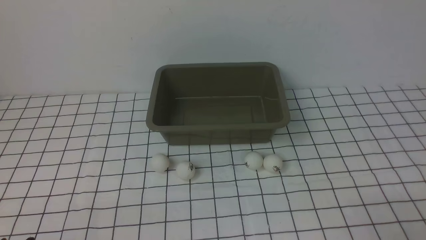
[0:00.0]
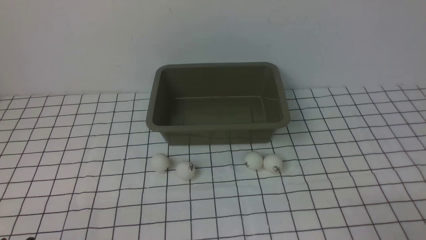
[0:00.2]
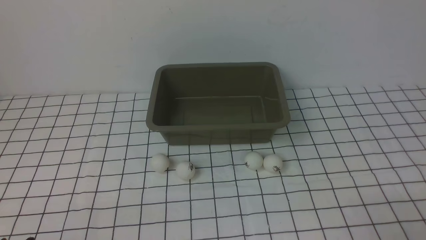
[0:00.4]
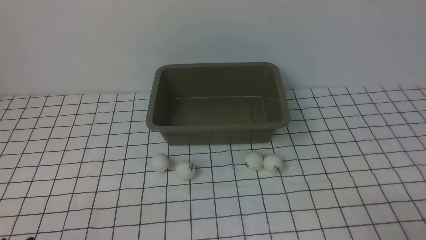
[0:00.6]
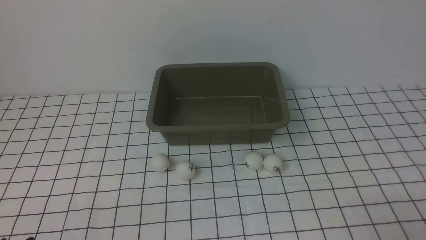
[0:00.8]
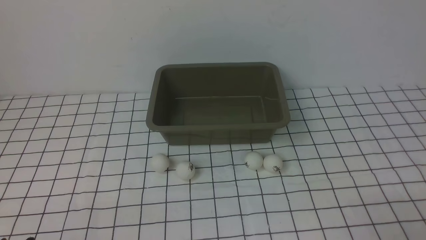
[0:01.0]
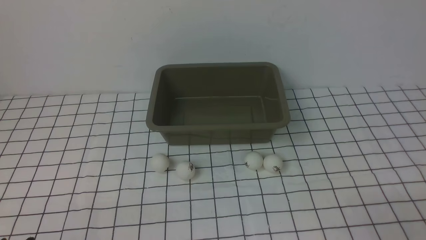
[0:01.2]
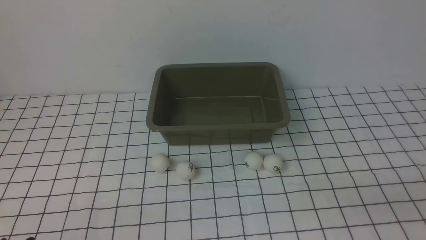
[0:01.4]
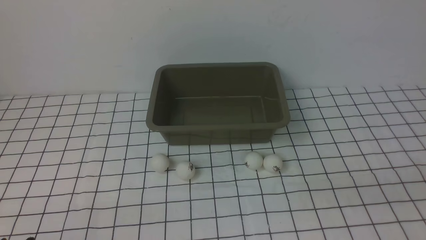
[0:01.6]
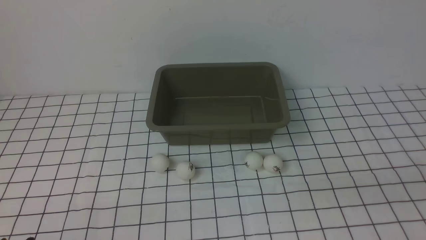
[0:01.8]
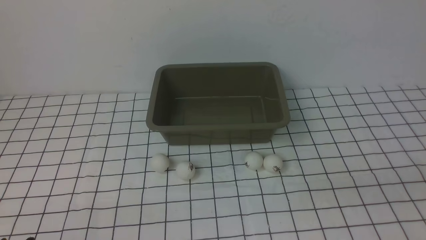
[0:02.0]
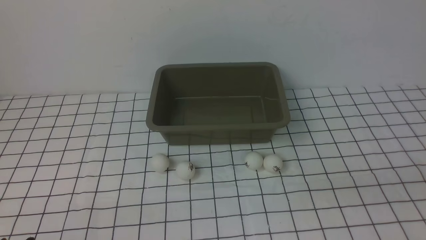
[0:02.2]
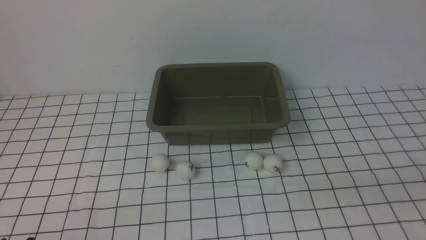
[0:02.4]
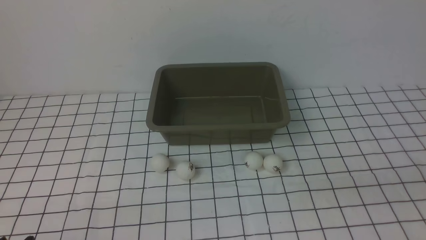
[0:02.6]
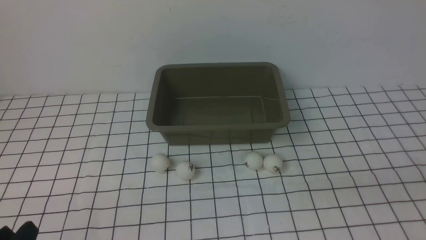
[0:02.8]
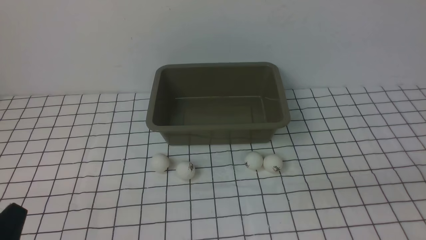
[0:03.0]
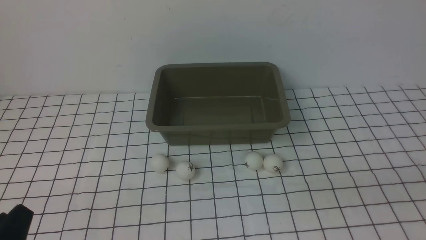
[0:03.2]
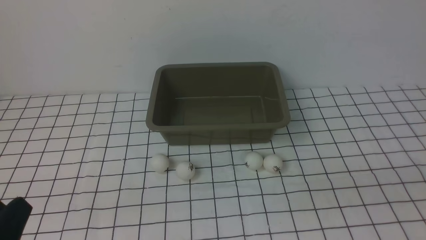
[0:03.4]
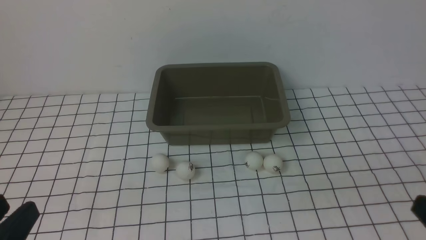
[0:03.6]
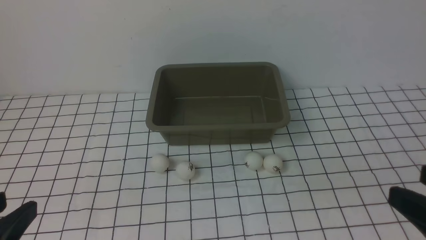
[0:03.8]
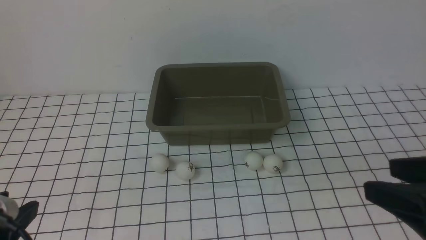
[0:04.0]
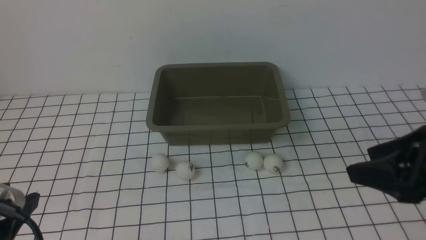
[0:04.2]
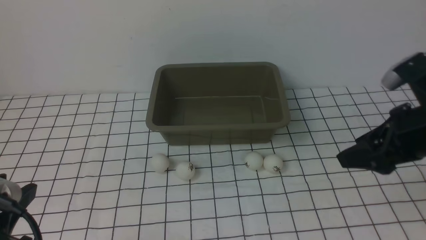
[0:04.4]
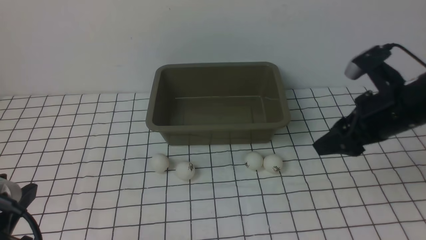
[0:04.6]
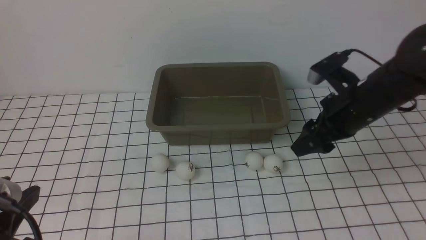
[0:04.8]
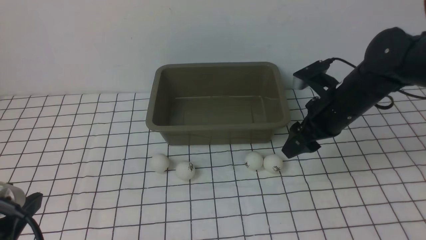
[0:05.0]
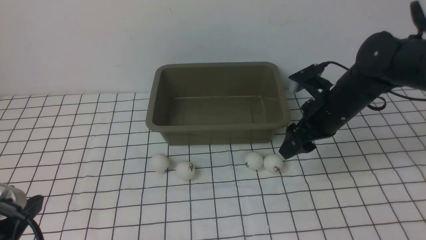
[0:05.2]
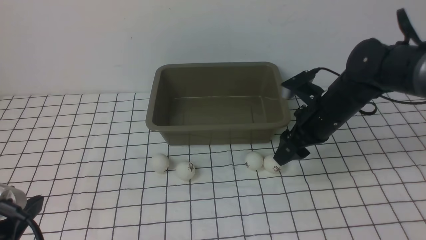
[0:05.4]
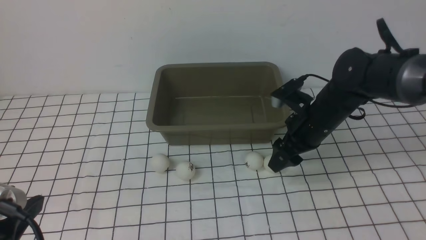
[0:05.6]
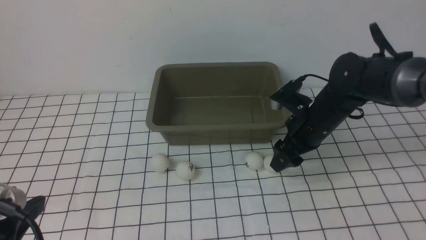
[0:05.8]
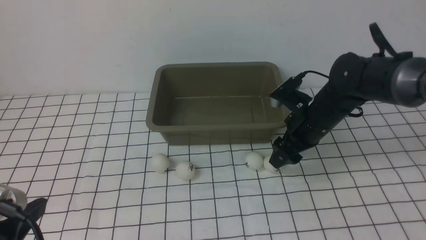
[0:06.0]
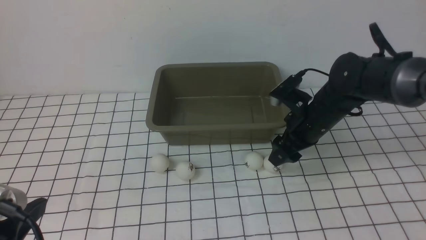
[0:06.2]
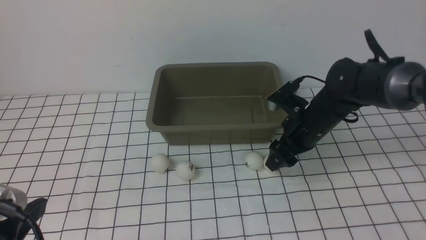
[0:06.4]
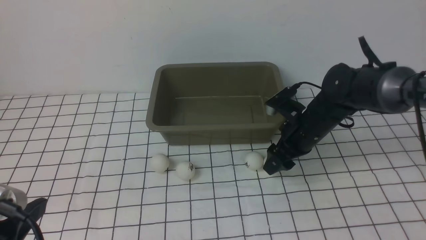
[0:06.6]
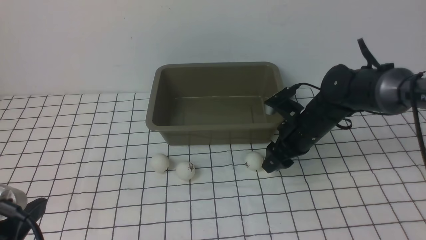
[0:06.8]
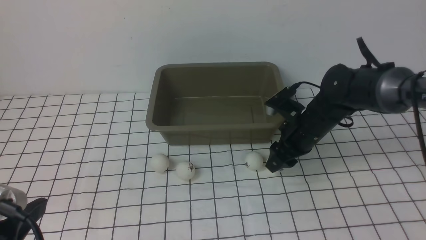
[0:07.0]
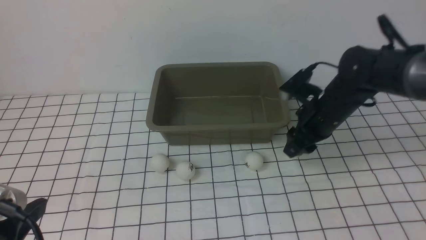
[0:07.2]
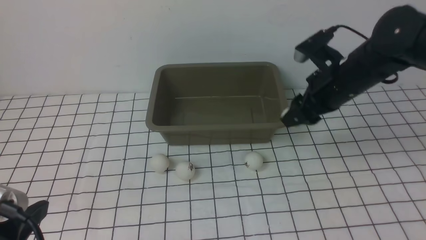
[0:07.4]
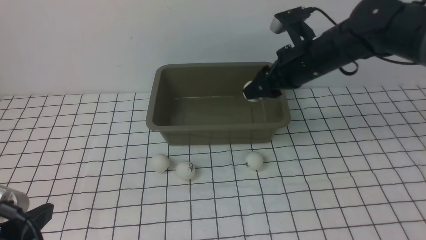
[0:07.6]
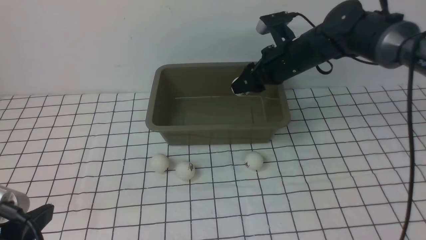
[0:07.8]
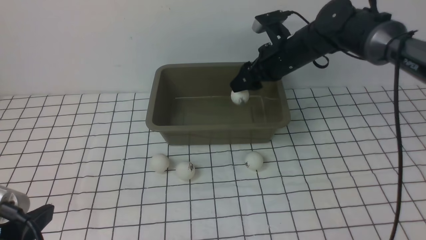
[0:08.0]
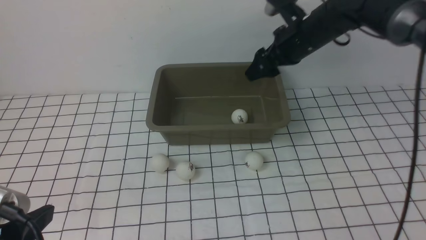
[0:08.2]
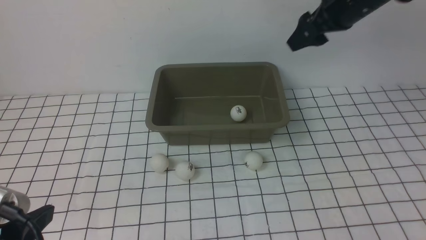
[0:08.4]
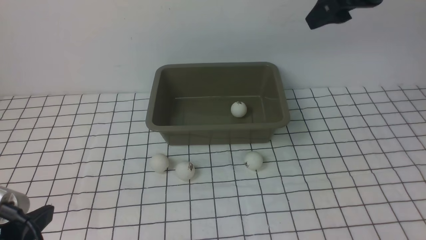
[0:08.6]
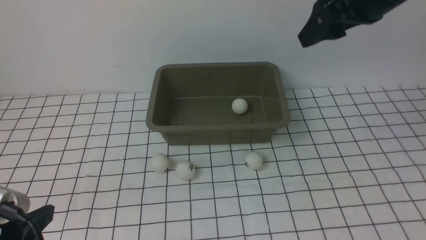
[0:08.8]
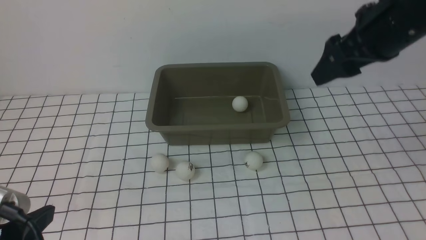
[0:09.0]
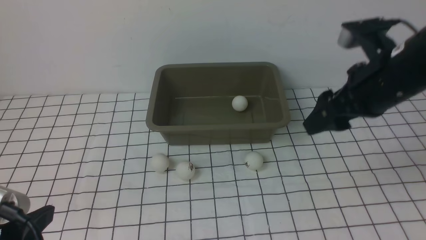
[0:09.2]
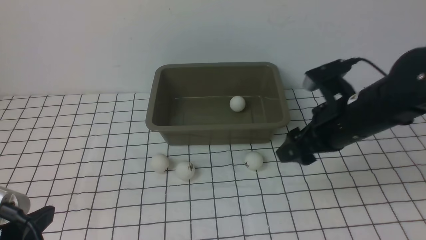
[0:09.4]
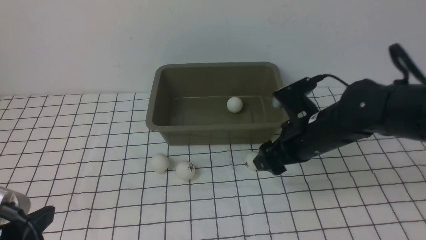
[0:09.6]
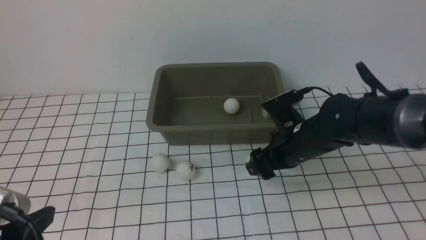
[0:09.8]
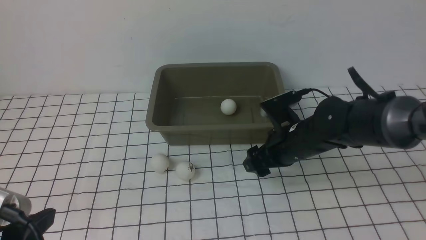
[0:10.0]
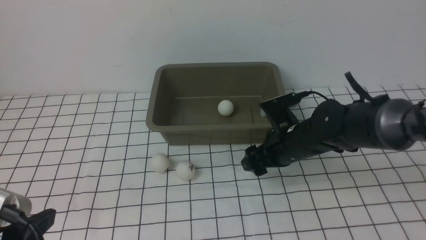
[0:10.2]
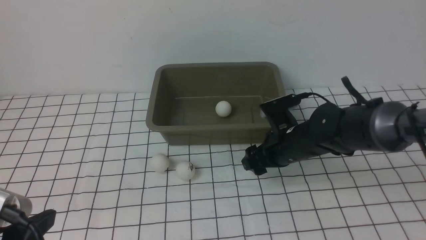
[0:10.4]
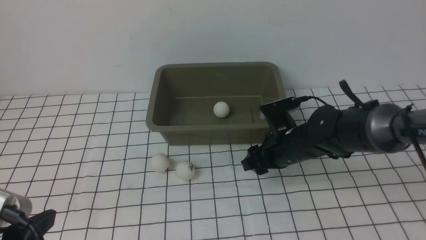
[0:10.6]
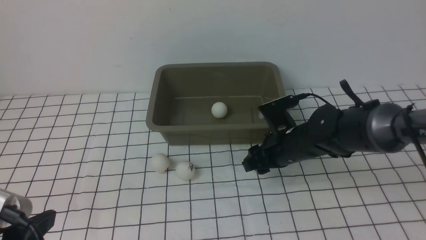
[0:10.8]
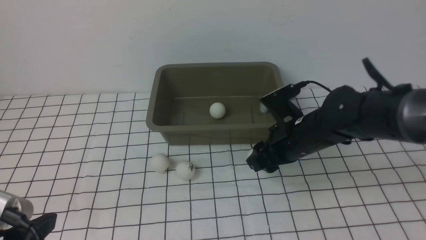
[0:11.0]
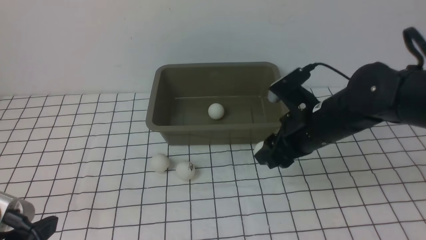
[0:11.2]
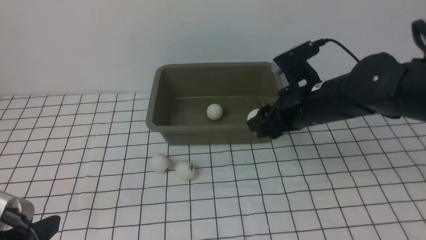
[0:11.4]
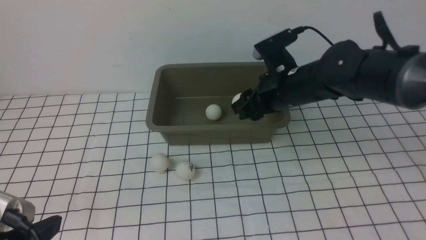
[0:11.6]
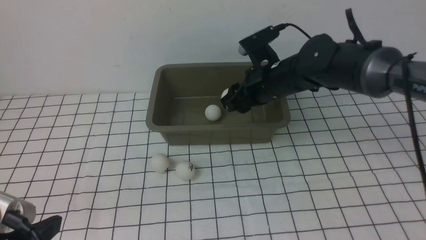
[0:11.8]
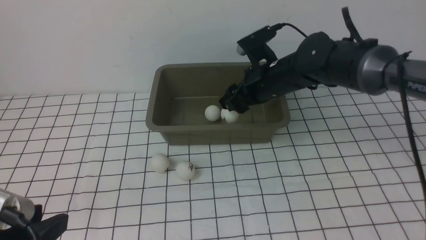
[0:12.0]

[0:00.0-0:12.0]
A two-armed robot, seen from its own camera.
Step, 0:00.0 to 0:07.4: use the right arm to clamp the table tennis ball closest to it.
Step, 0:07.6 to 0:08.2: use the right arm to put the table tennis ball into the box.
Step, 0:08.4 to 0:11.0: use the right arm to clamp the table tennis ball closest to it.
0:03.0 to 0:04.4: The left gripper travels upward by some 10 cm; the right gripper travels forward by about 20 cm.
0:04.4 to 0:06.0: The right gripper shifts about 20 cm forward, downward and to the left.
0:06.0 to 0:07.6: The right gripper heads upward, covering about 10 cm, and closes up.
0:07.6 to 0:09.0: The right gripper heads upward, backward and to the right, covering approximately 15 cm, and opens.
0:09.0 to 0:10.4: The right gripper travels downward by some 25 cm, and closes its fingers.
0:10.4 to 0:12.0: The right gripper moves upward and forward, some 15 cm, and closes, then opens again.

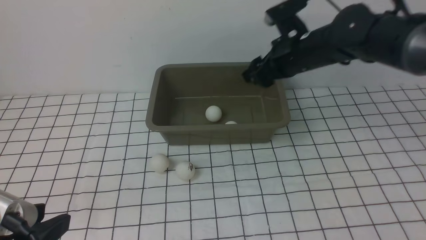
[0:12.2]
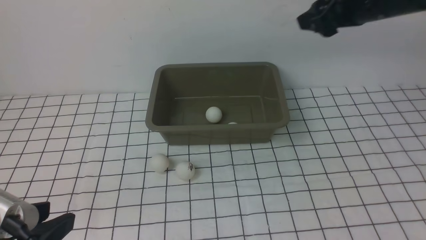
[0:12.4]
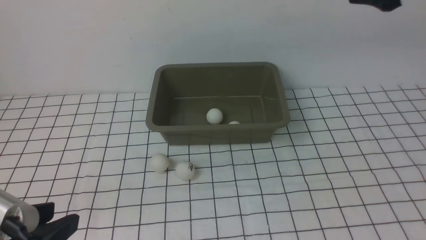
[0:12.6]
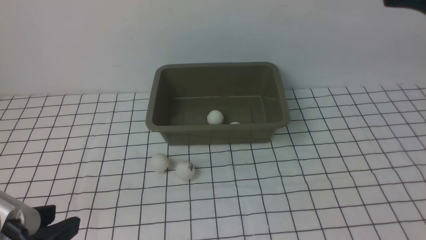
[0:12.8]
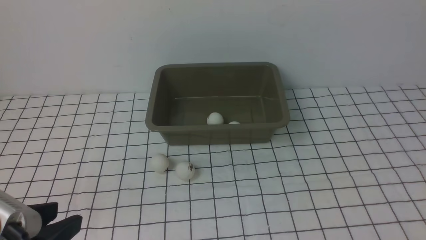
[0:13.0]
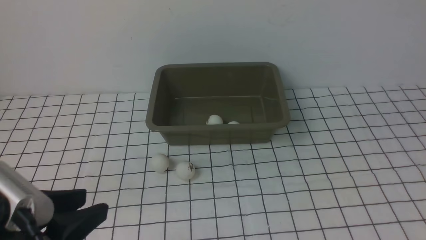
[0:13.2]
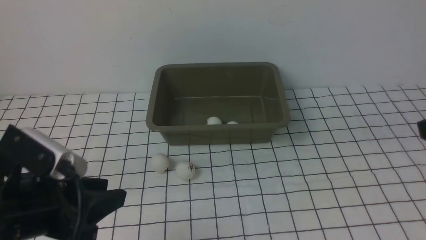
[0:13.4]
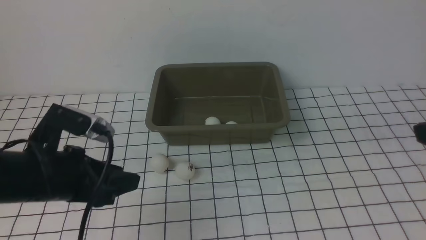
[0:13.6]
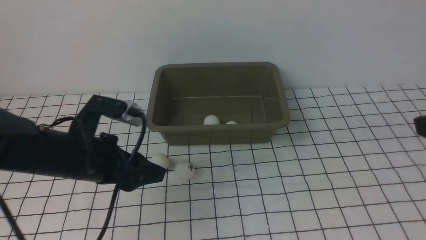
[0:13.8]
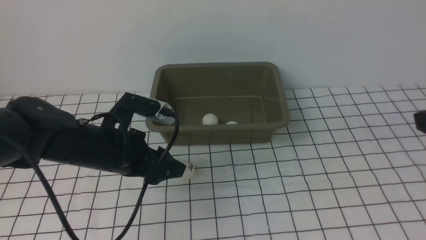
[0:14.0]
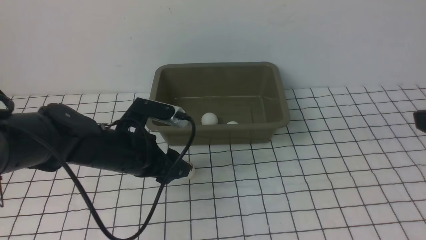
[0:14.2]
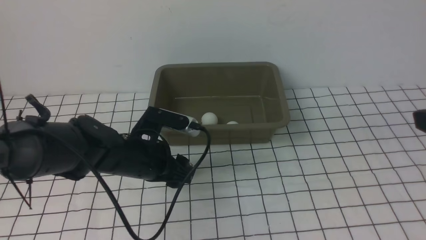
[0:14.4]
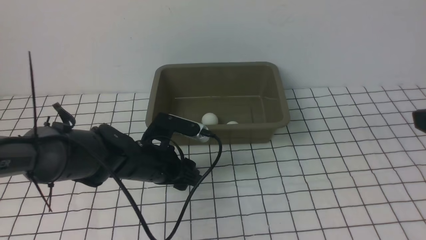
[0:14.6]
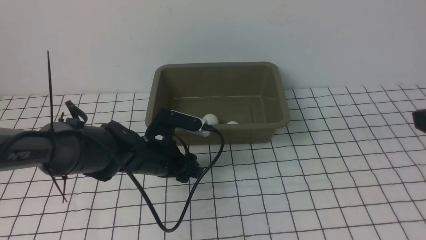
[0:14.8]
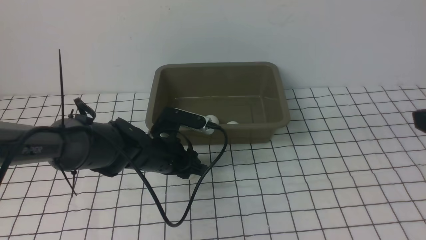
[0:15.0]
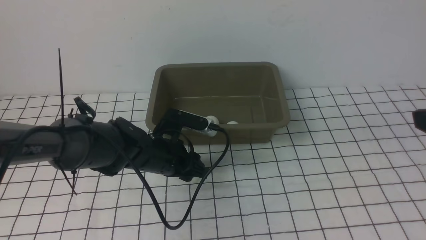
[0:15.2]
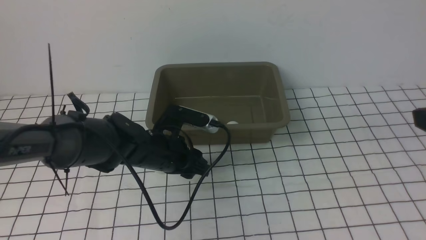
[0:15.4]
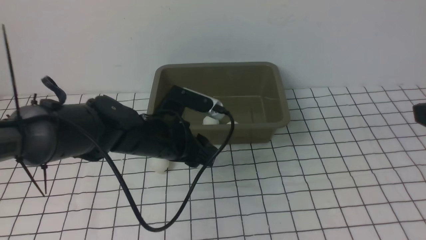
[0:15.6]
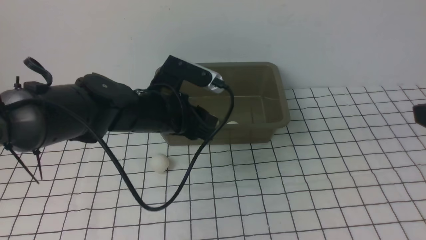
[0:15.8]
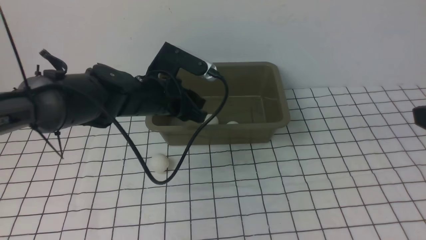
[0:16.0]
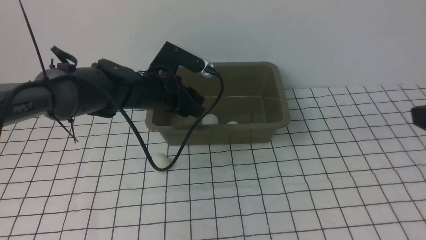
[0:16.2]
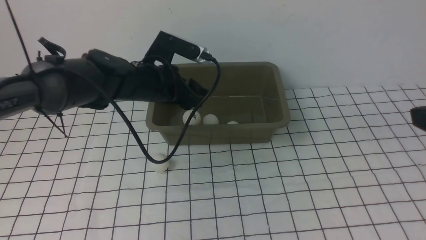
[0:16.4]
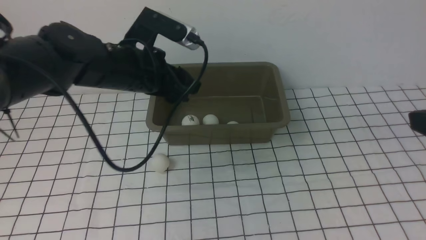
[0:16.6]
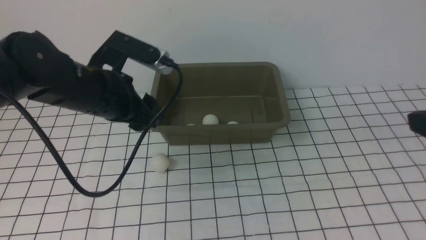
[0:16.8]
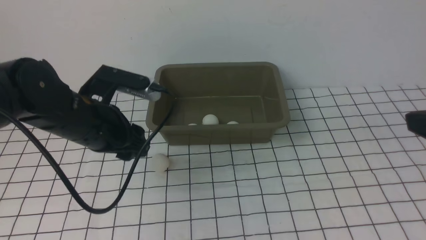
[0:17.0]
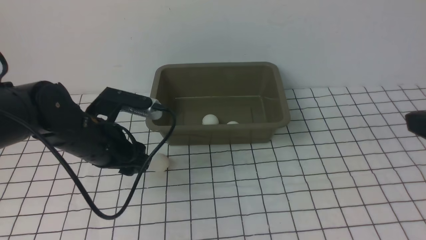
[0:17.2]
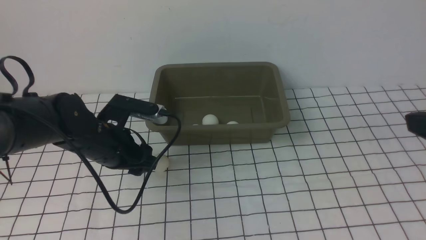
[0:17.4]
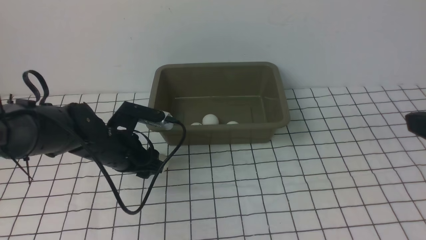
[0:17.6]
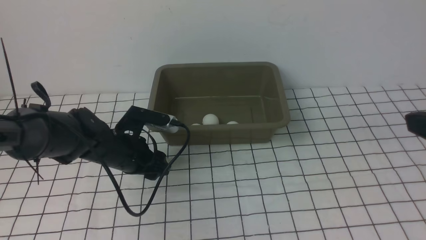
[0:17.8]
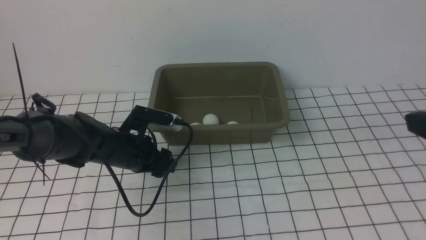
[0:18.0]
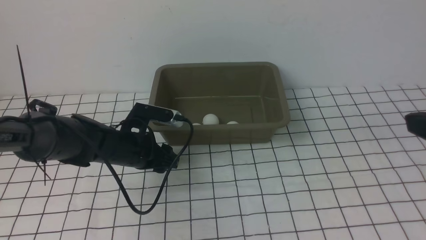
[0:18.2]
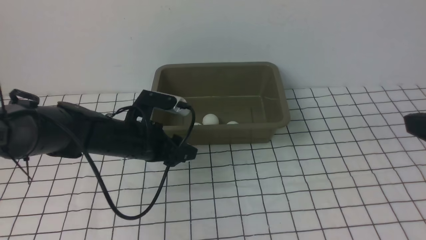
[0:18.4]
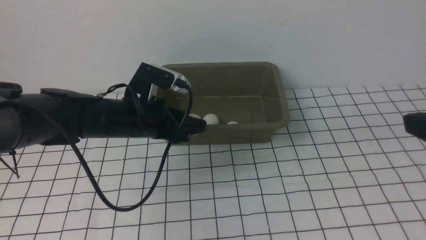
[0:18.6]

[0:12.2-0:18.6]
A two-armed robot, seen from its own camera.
Step, 0:12.4 to 0:15.6: use the left arm to clamp the table tennis ball closest to it.
Step, 0:15.8 to 0:16.4: use the left arm to put the table tennis ball into the box.
Step, 0:16.6 to 0:18.2: use the left arm to clamp the table tennis ball closest to it.
0:12.2 to 0:13.8: The right gripper goes about 30 cm backward and to the right; the left gripper shifts roughly 15 cm forward, and opens its fingers.
0:13.8 to 0:15.4: The left gripper heads to the right, forward and downward, covering approximately 15 cm, and closes.
0:15.4 to 0:17.0: The left gripper heads to the left and upward, covering approximately 10 cm, and opens its fingers.
0:17.0 to 0:18.6: The left gripper heads forward, covering roughly 10 cm, and reaches about 10 cm downward, then returns.
